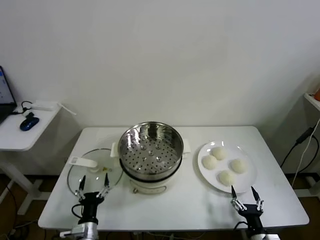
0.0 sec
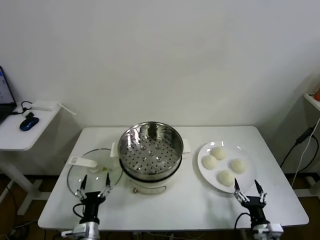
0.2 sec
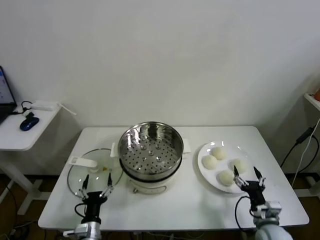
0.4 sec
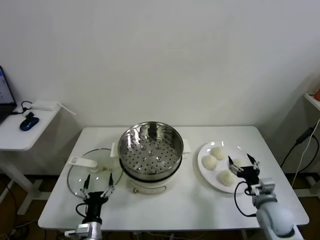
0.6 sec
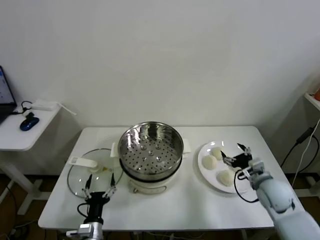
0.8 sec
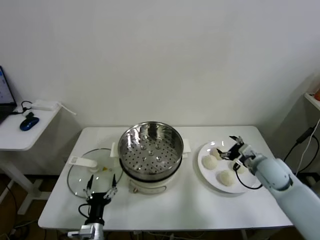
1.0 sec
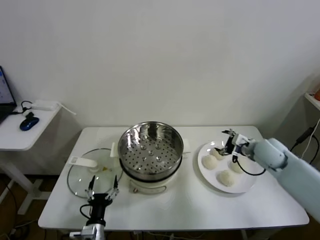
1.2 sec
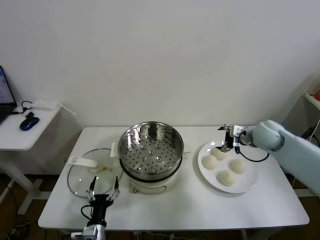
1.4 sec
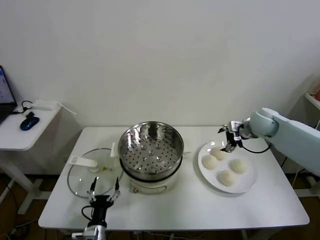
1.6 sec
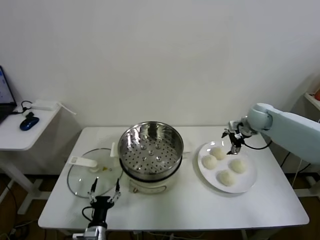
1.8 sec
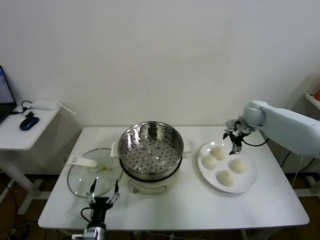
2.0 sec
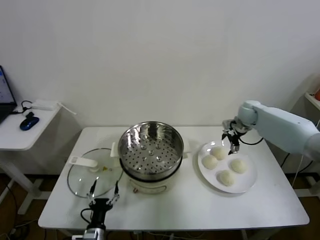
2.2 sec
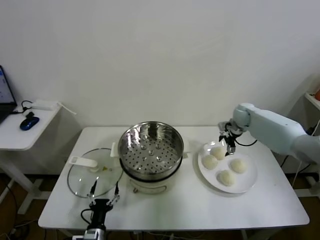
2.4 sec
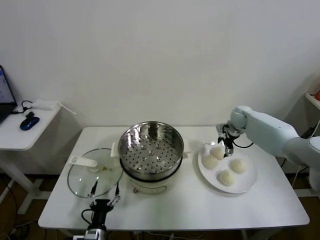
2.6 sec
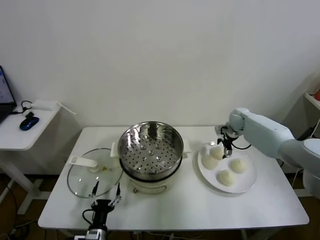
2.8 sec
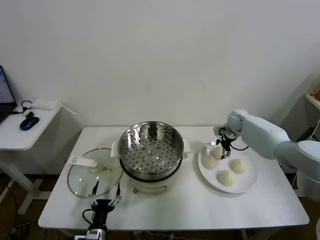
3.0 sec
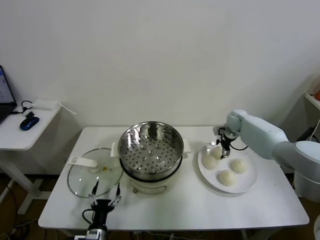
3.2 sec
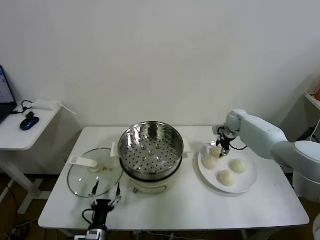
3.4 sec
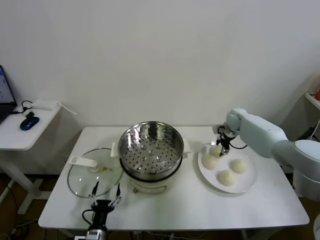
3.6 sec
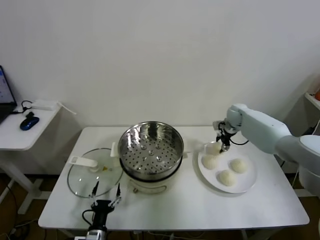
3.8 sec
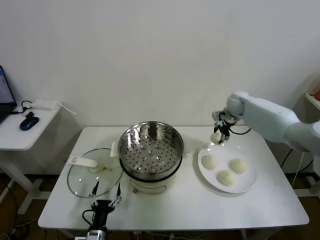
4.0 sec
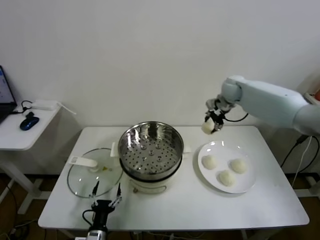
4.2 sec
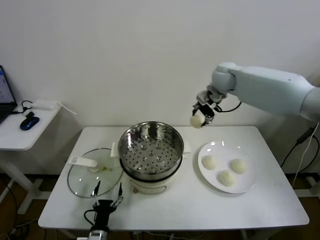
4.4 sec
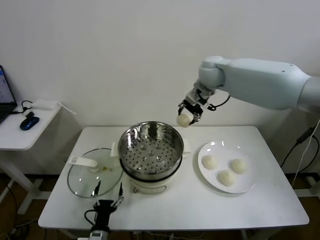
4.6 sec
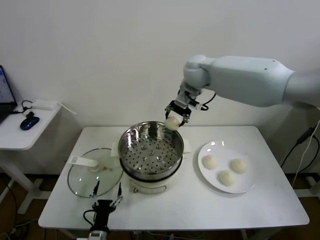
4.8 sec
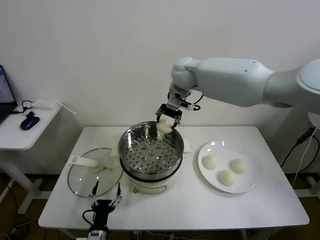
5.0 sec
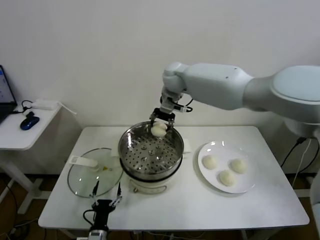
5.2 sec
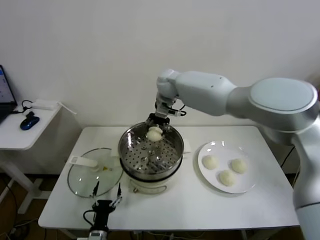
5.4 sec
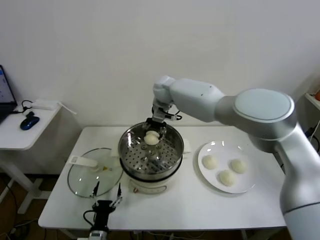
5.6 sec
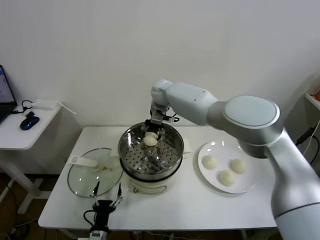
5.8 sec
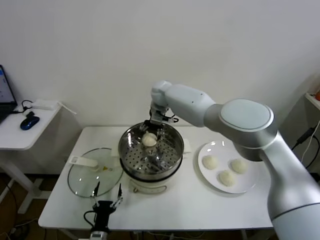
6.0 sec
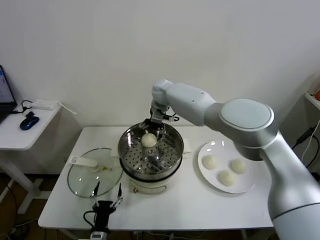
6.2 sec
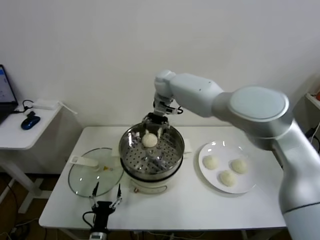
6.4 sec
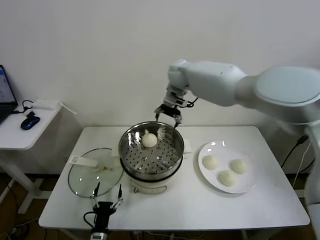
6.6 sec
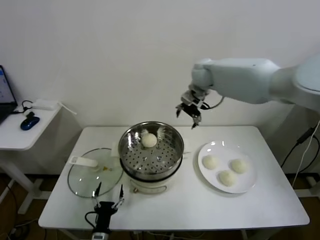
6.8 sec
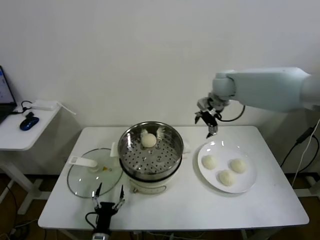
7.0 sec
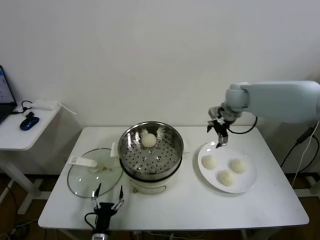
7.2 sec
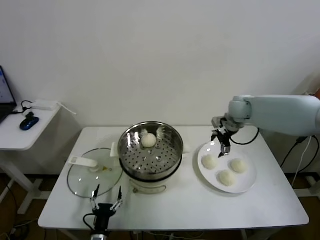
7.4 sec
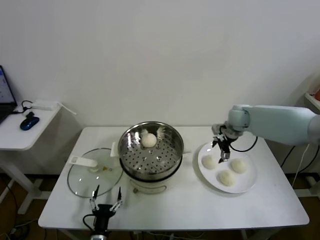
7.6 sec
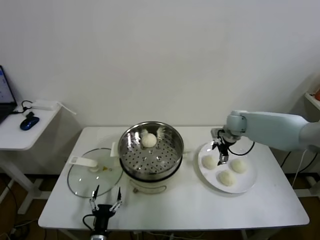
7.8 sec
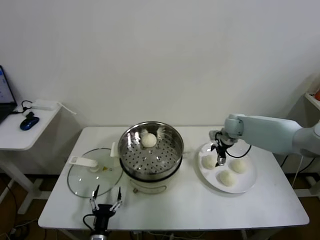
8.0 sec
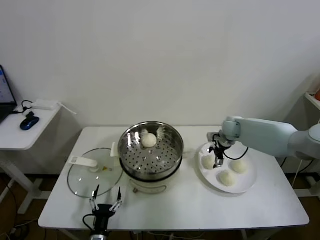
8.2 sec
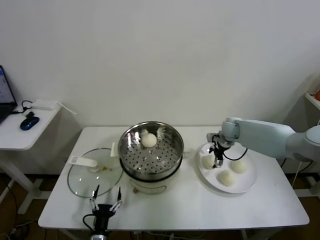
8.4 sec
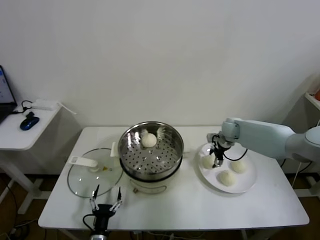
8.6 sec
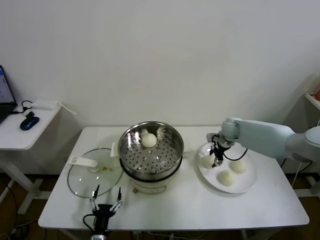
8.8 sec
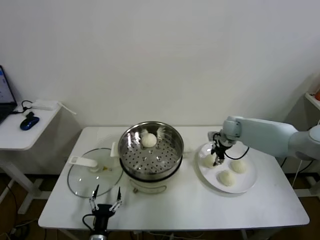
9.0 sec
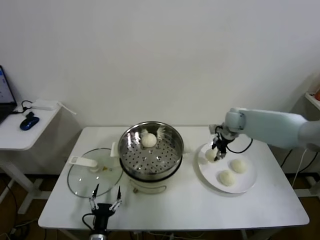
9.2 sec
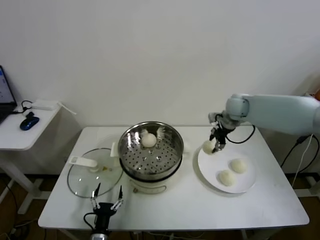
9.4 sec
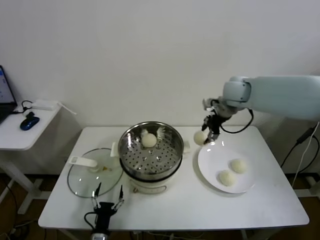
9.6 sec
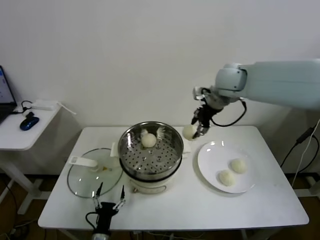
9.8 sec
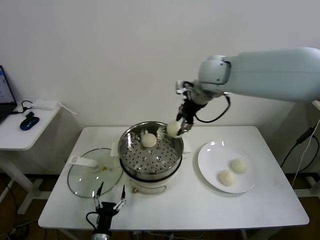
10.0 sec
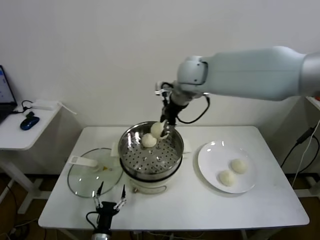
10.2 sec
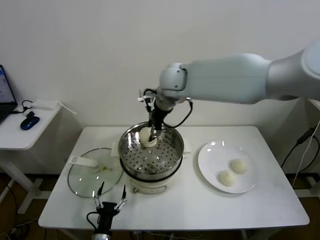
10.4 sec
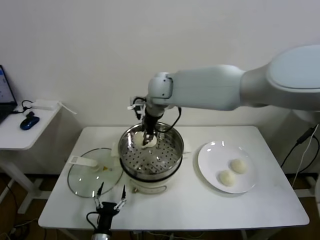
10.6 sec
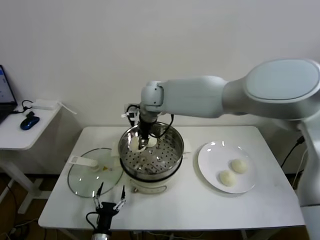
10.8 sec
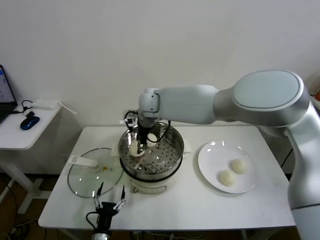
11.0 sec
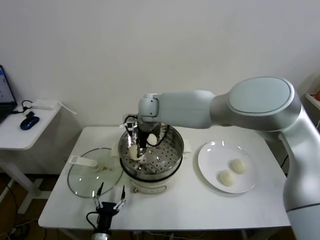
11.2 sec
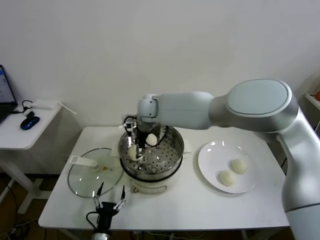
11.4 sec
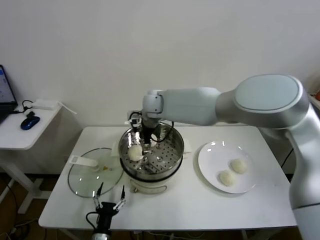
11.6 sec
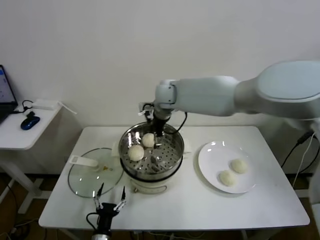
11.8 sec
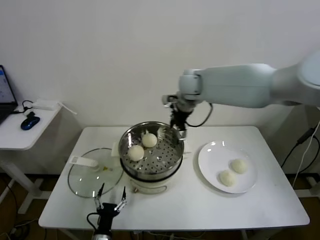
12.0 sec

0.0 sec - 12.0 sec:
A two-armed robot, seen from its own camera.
Task of the whole recording: take steamed baozi put them in steamer.
Step, 0.0 sec - 3.4 sec: Grasp the baozi in the plate with right gripper.
Step, 3.6 sec - 6.2 sec: Place the baozi on the steamer with right gripper.
Step, 6.4 sec - 8.8 sec: Grasp the baozi in the plate with right gripper.
Step, 9.0 sec - 11.6 sec: Place the baozi on the steamer with right gripper.
1.6 sec - 3.0 sec: The right gripper heads downward and forward, covering about 15 cm.
3.0 sec - 4.4 sec: The right gripper goes approximately 30 cm upward and to the left, and closes its fingers.
4.4 sec - 6.0 sec: The right gripper travels to the left and downward by about 20 cm, and opens.
6.0 sec - 7.6 sec: The right gripper shifts approximately 30 cm to the right.
7.6 sec - 9.0 sec: The right gripper changes place by about 5 cm, and closes.
9.0 sec - 10.4 sec: The right gripper is displaced to the left and upward by roughly 35 cm.
10.4 sec - 12.0 sec: The right gripper shifts approximately 10 cm to the right, and opens.

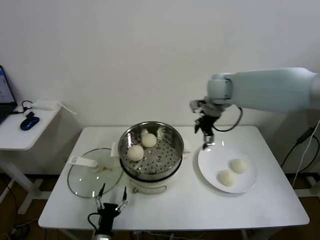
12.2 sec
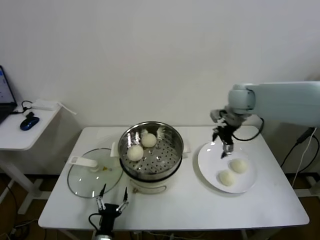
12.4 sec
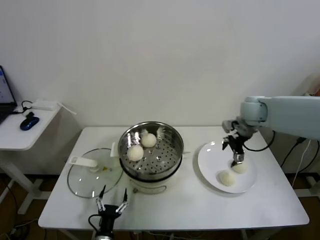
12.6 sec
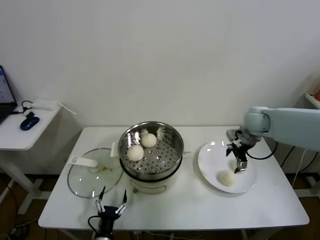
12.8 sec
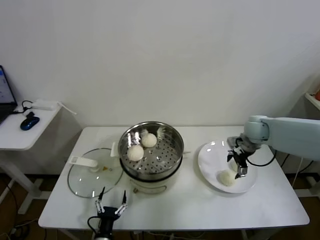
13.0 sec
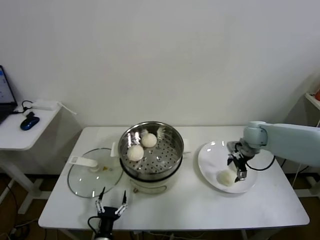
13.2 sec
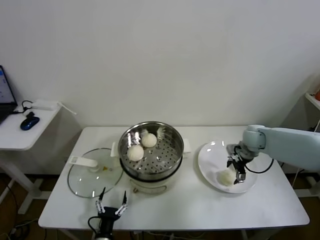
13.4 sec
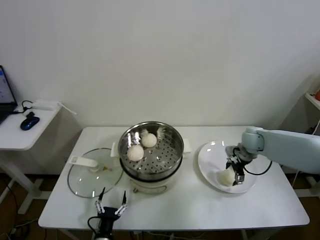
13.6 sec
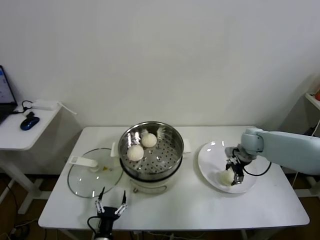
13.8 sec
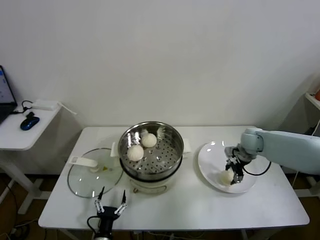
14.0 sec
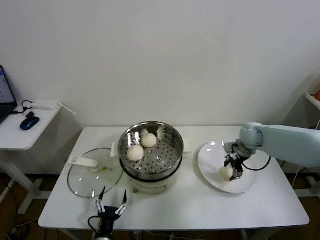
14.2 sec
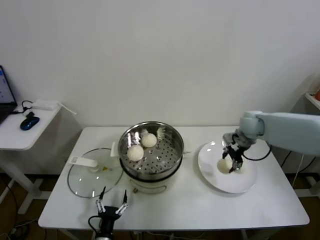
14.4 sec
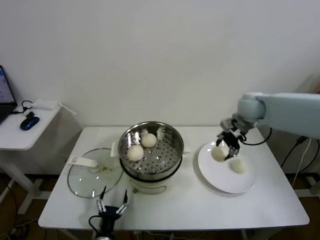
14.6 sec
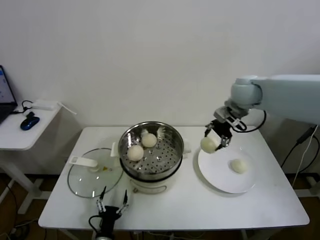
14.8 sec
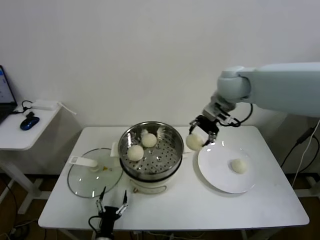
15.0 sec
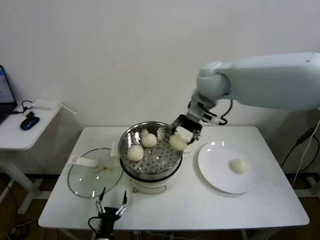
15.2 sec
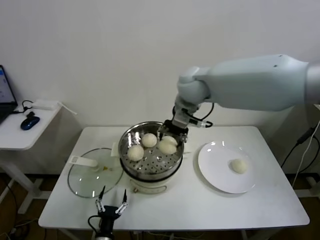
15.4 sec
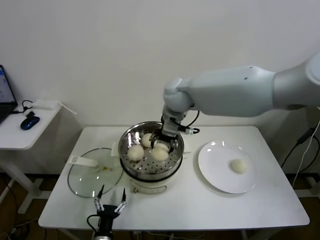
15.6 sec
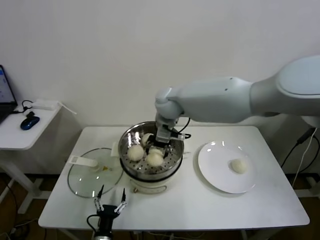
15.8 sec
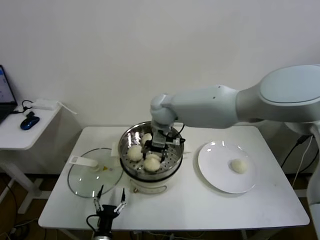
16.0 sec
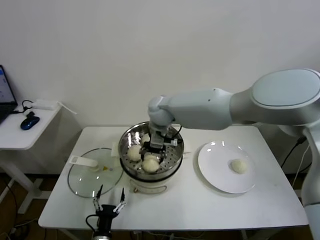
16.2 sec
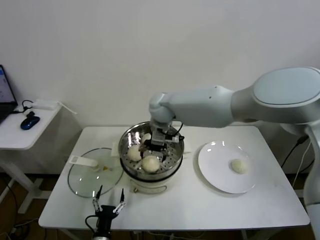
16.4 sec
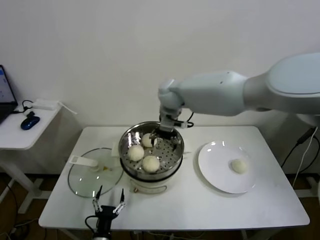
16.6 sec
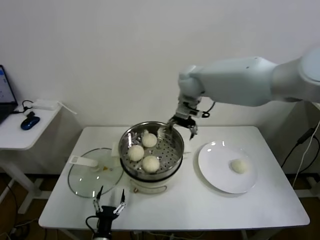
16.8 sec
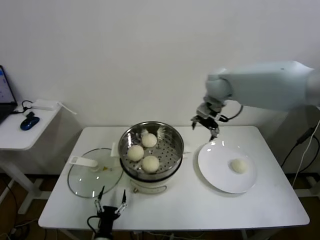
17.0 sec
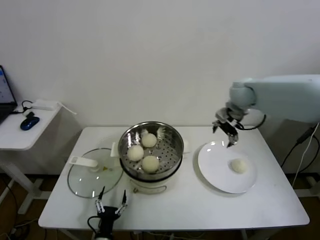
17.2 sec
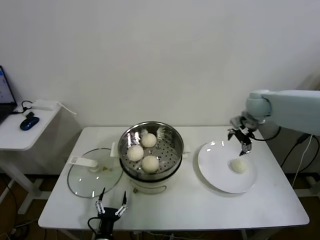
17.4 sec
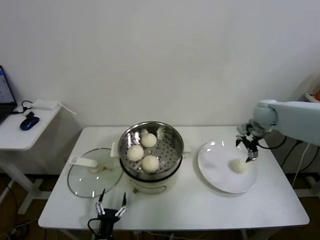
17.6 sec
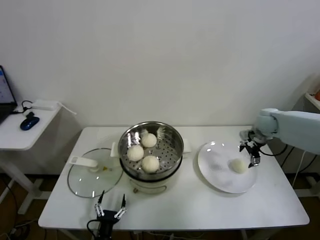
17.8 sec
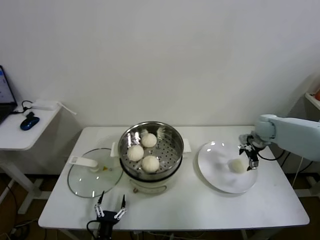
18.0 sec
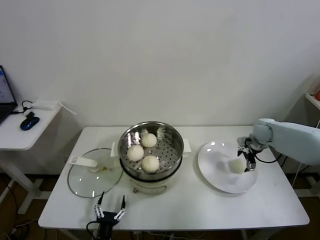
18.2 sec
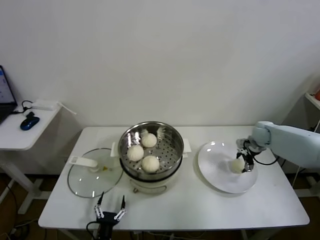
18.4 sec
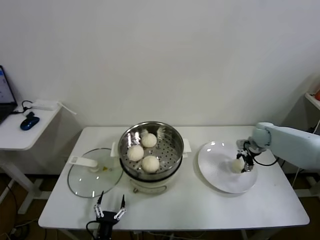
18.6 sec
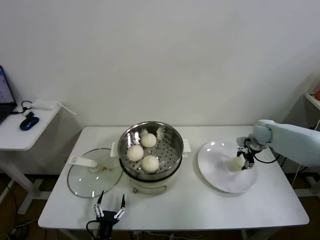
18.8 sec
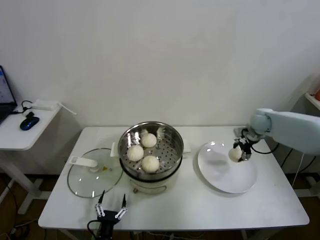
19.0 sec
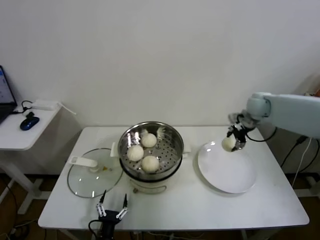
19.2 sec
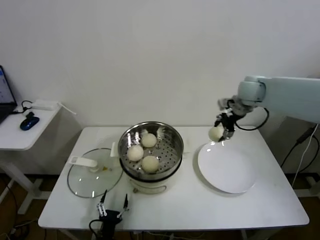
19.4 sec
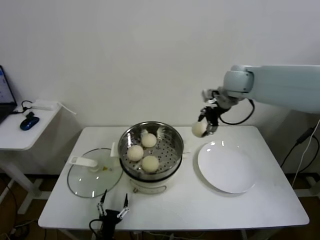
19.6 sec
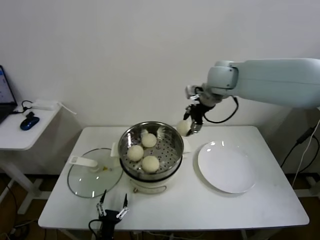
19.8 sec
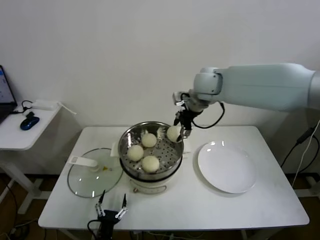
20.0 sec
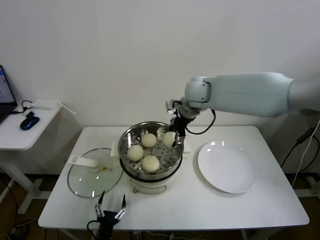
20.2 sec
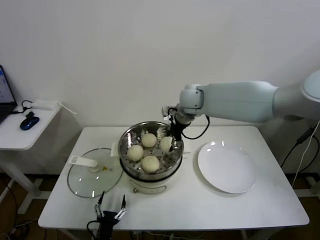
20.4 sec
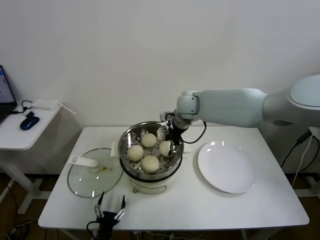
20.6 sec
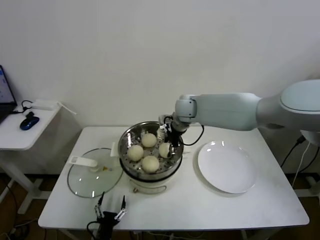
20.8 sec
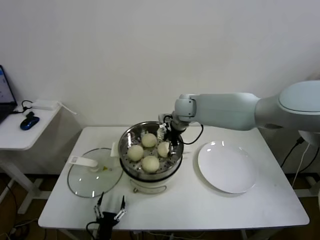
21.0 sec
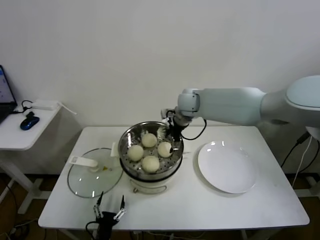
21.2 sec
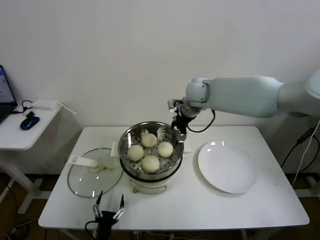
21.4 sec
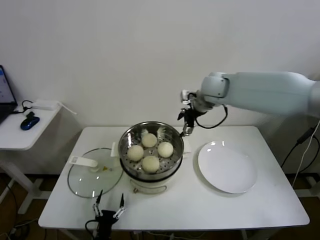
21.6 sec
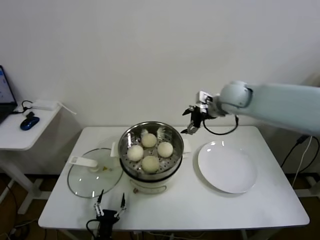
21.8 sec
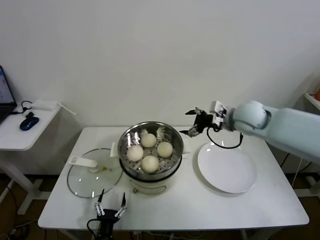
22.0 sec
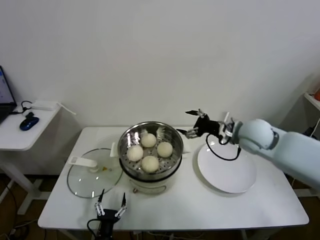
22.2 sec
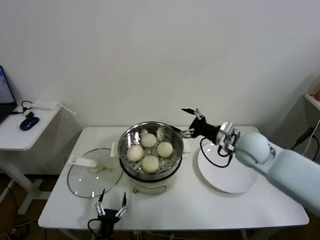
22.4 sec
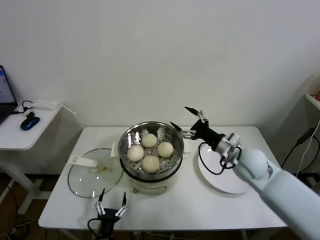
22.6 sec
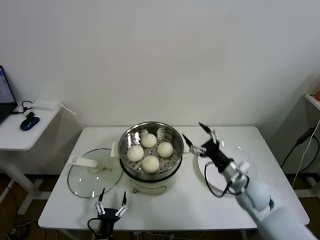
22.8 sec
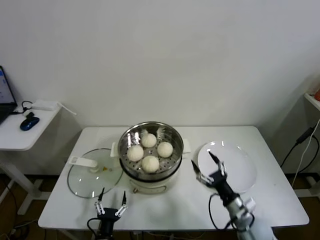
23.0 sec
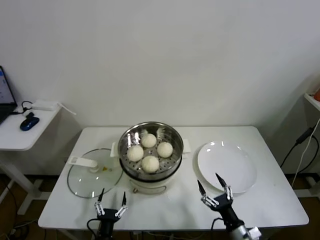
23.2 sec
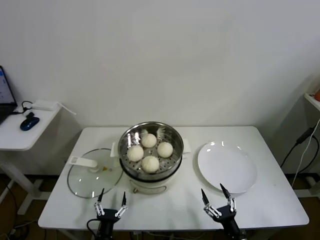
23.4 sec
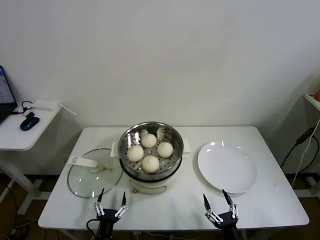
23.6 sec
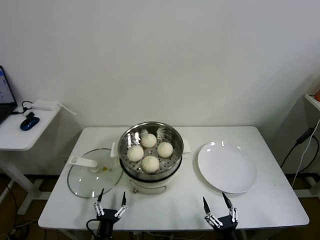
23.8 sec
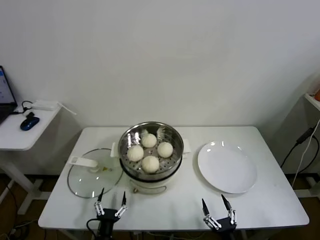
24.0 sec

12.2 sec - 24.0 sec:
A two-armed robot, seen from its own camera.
Task of the whole recording: take steamed baozi put them in steamer.
Step, 12.2 sec - 14.0 sec: Grasp the baozi in the plate with right gripper.
Step, 14.4 sec - 16.4 sec: Place the baozi on the steamer with right gripper.
Step, 16.8 sec - 18.8 sec: Grasp the baozi in the plate with right gripper.
Step, 19.0 sec - 21.2 sec: Place the baozi on the steamer with right gripper.
12.2 sec - 13.6 sec: The right gripper is displaced downward and to the right by about 25 cm.
13.6 sec - 15.2 sec: The right gripper heads upward and to the left, covering about 35 cm, and closes up.
15.2 sec - 16.6 sec: The right gripper moves to the left, downward and forward, approximately 15 cm, and opens up.
16.6 sec - 18.2 sec: The right gripper goes approximately 40 cm to the right and downward.
18.2 sec - 19.6 sec: The right gripper shifts about 30 cm upward and to the left, and closes.
19.6 sec - 21.0 sec: The right gripper goes some 20 cm to the left and downward.
21.0 sec - 22.6 sec: The right gripper moves to the right, backward and downward, some 25 cm, and opens up.
22.6 sec - 24.0 sec: The right gripper goes about 40 cm backward and downward.
